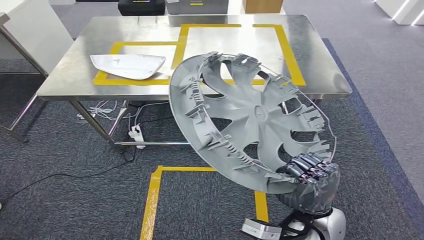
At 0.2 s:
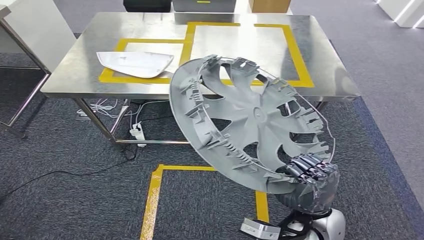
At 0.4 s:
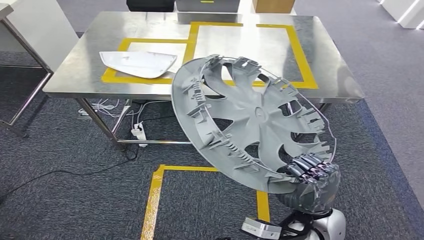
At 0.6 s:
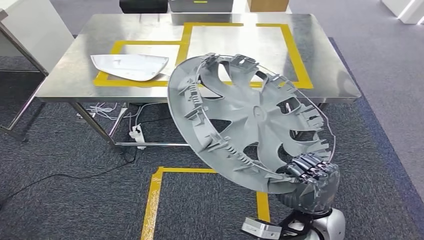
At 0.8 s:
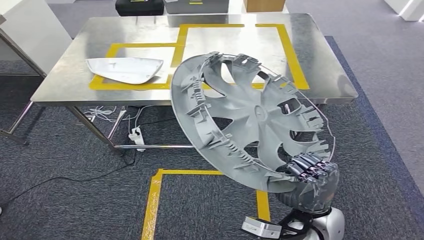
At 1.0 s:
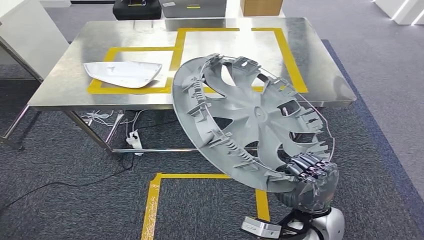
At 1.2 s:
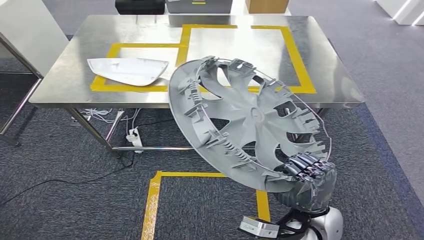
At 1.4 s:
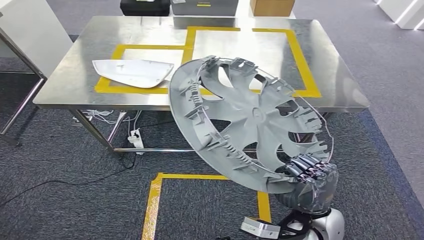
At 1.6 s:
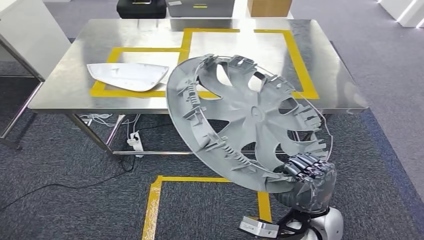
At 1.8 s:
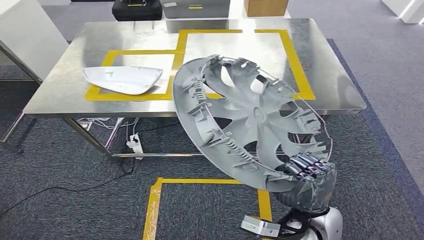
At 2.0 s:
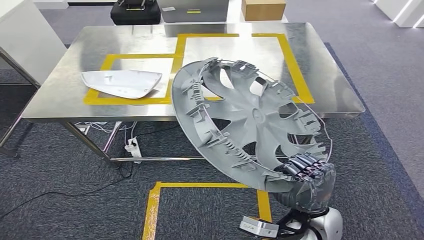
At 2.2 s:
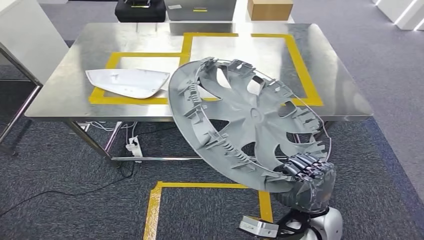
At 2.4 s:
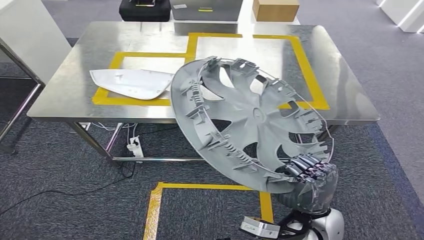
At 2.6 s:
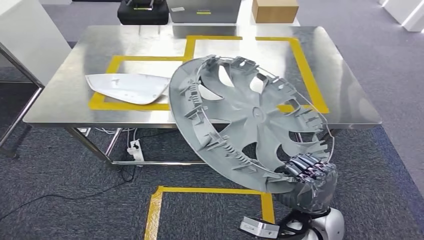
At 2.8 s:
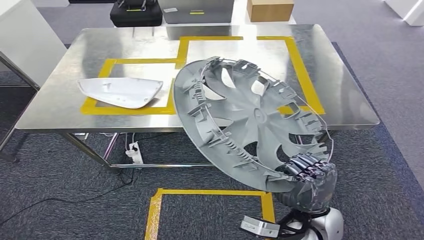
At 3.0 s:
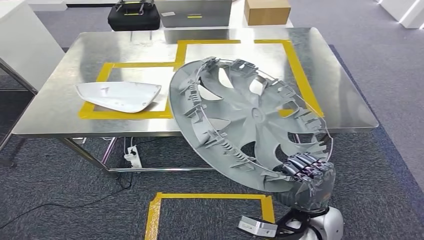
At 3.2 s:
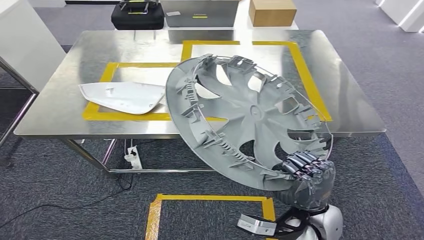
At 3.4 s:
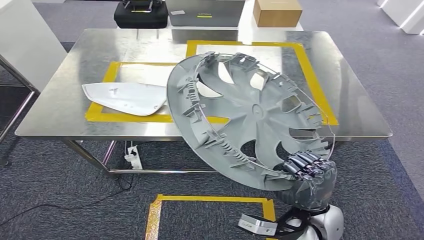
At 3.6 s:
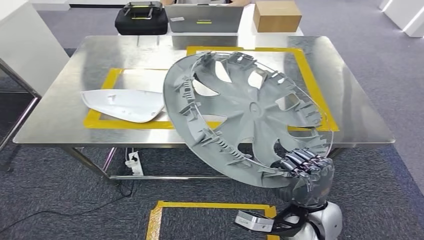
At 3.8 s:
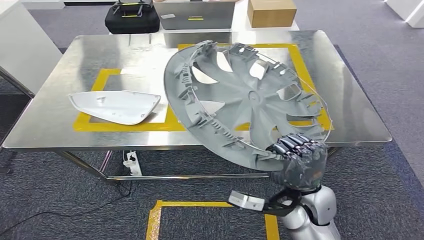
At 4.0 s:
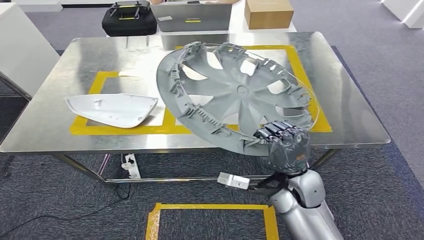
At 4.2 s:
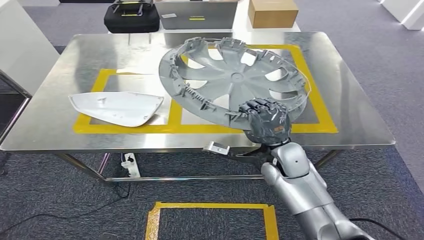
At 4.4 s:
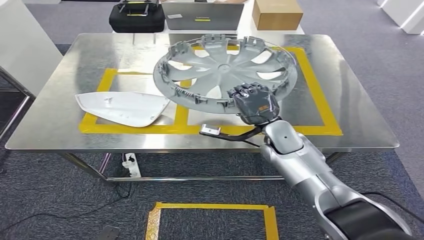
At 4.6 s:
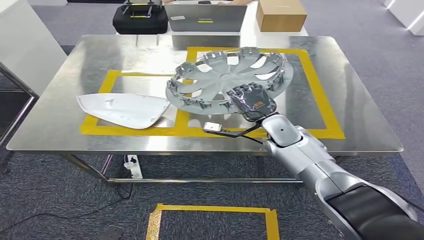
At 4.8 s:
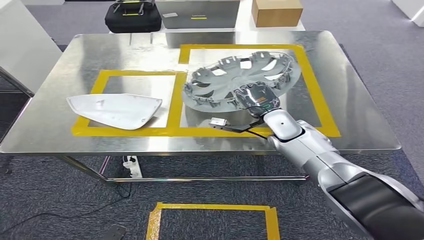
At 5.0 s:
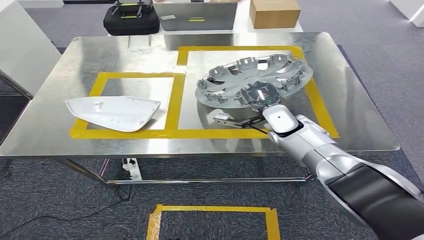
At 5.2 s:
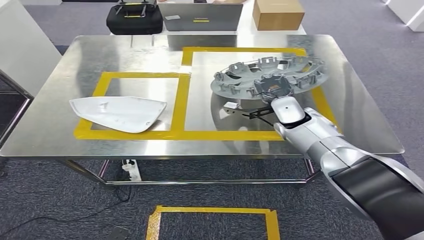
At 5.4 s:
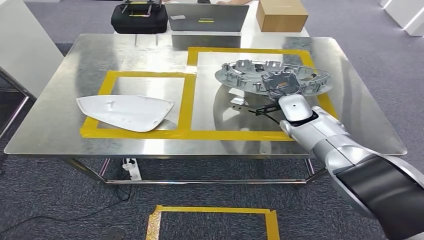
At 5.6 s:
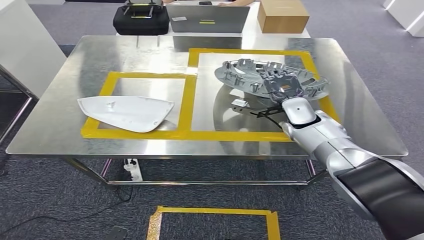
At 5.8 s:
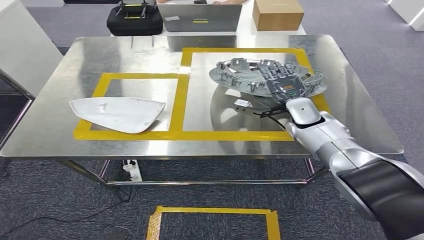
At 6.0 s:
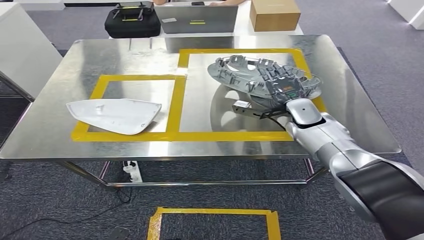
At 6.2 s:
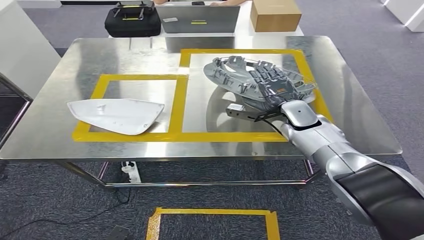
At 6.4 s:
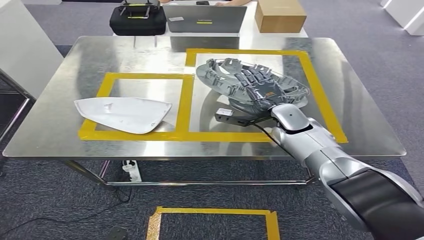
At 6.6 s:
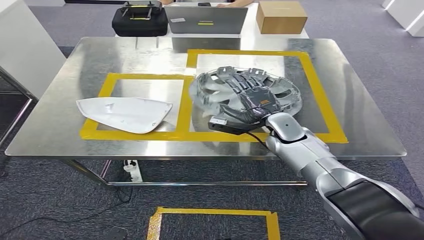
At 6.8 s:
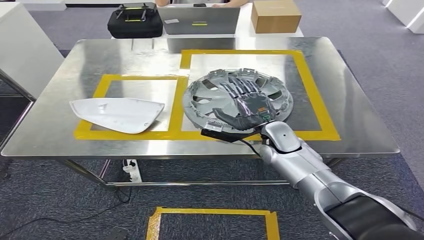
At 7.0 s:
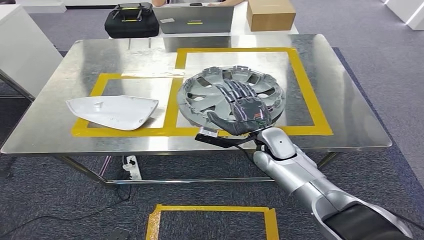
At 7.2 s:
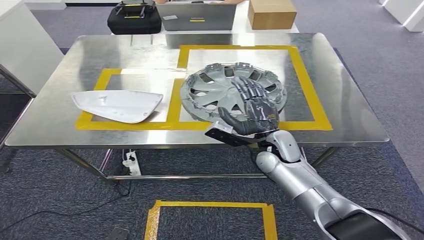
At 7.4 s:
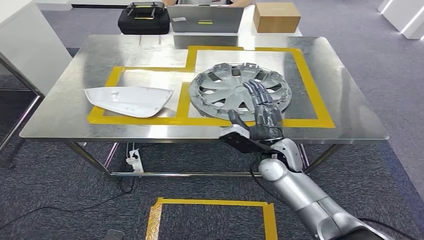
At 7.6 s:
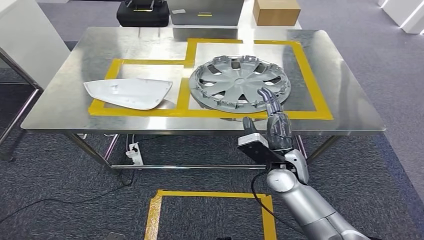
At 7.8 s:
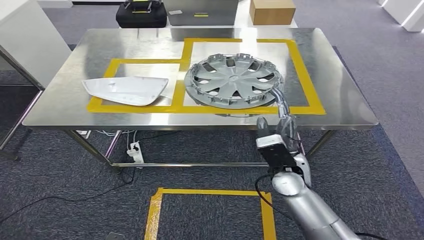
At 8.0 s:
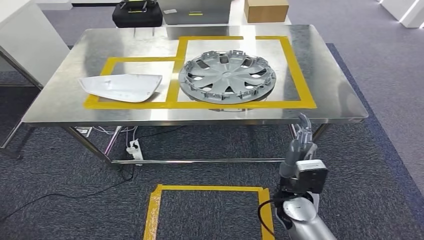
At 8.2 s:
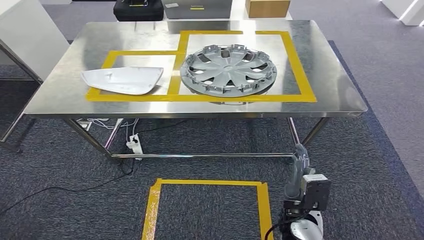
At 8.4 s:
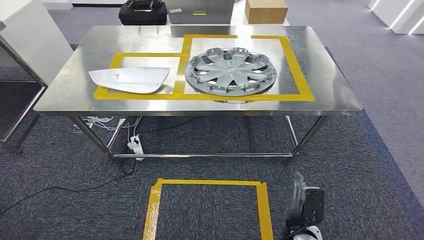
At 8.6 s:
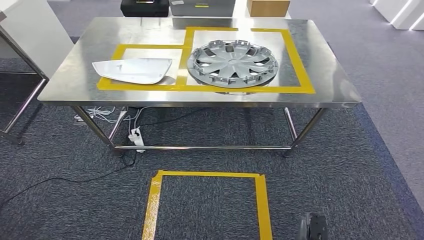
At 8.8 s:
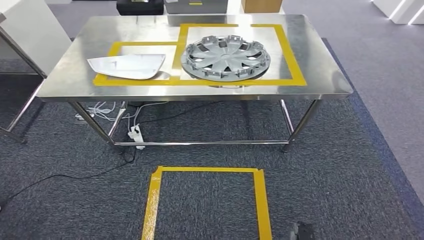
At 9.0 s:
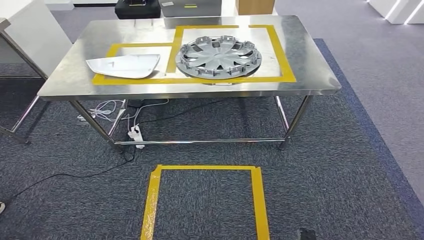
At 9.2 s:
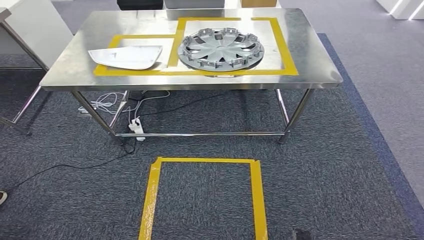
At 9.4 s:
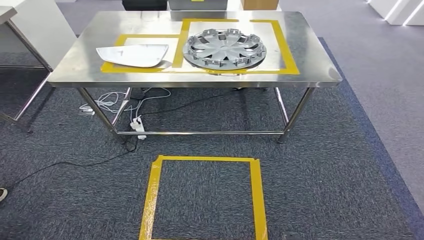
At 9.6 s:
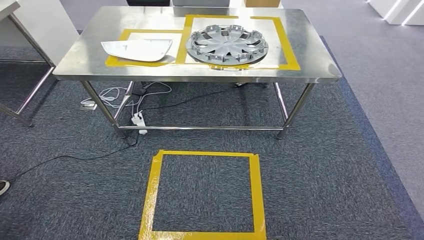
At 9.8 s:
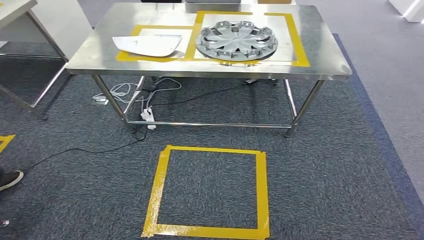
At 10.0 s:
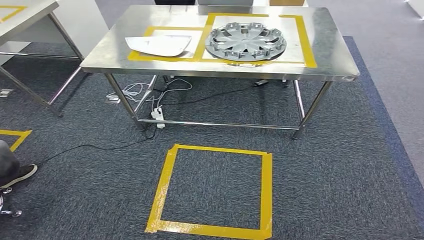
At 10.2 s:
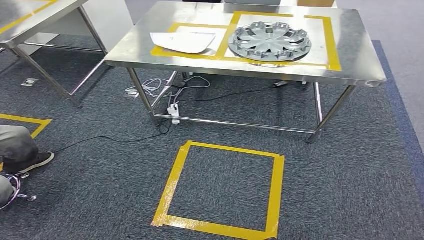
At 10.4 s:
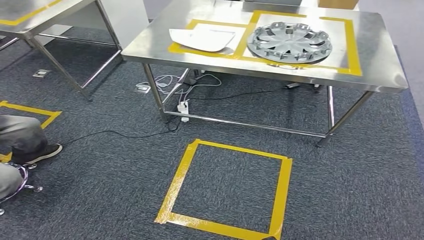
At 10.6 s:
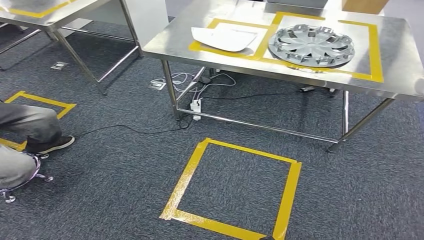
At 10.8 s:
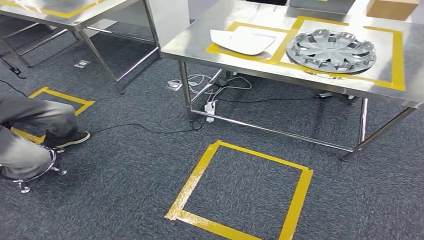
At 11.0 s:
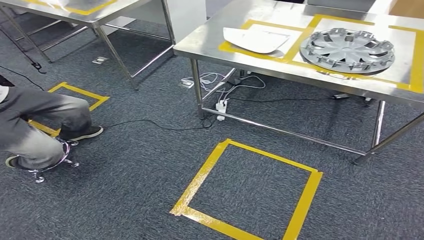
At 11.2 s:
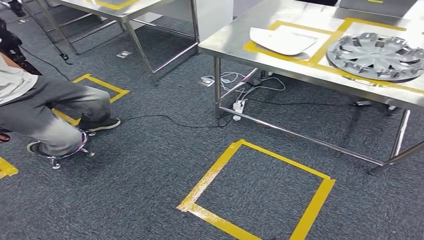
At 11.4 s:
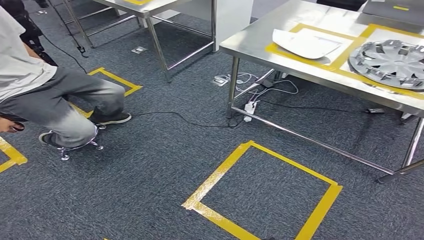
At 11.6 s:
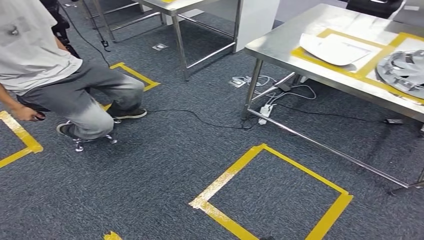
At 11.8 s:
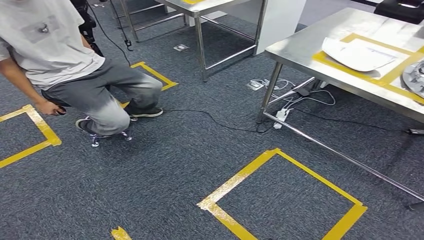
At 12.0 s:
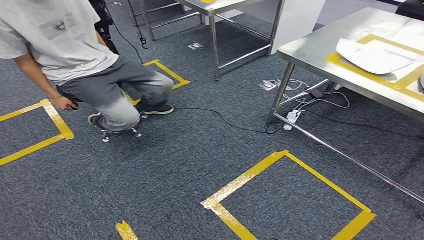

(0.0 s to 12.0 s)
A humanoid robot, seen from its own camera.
Step, 0.0 s - 7.4 s: Insert the small component into the corresponding slot on the workbench.

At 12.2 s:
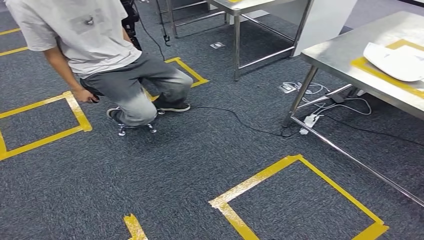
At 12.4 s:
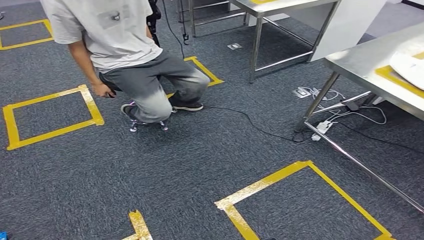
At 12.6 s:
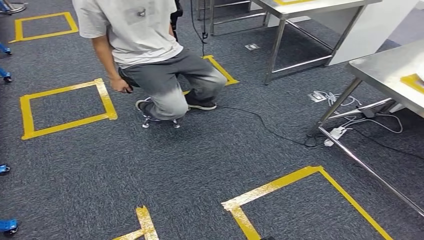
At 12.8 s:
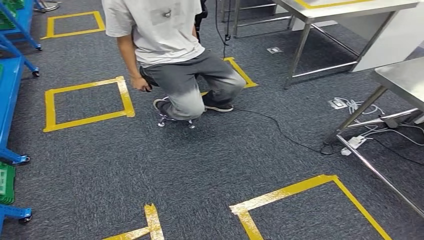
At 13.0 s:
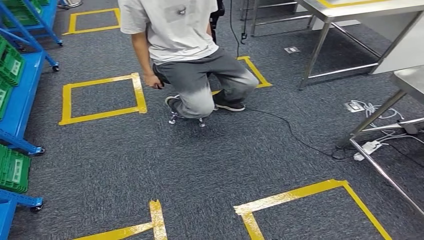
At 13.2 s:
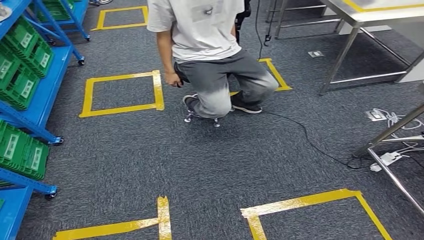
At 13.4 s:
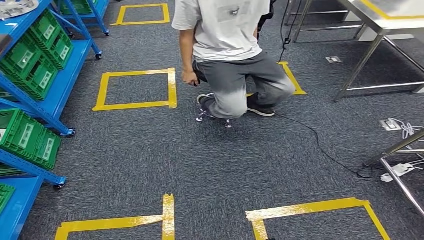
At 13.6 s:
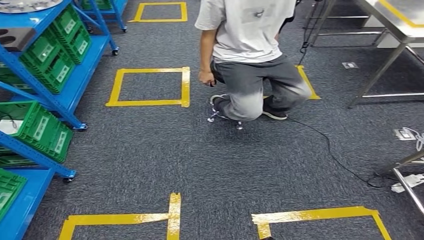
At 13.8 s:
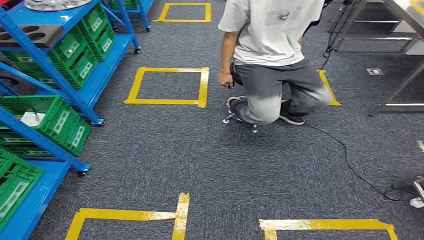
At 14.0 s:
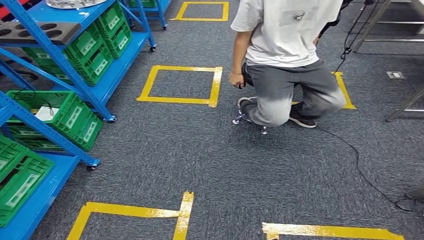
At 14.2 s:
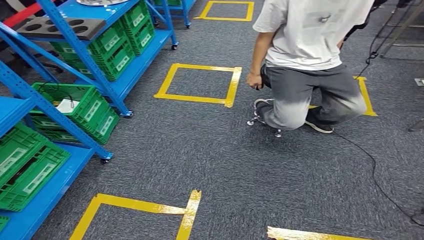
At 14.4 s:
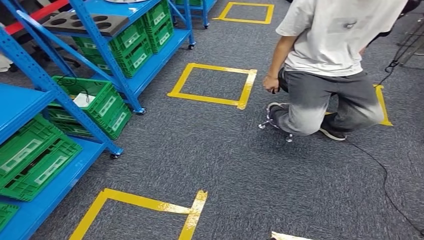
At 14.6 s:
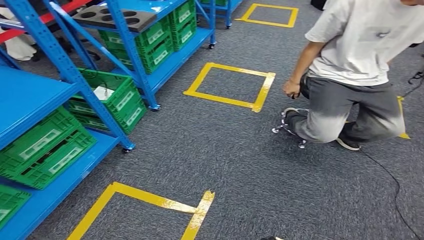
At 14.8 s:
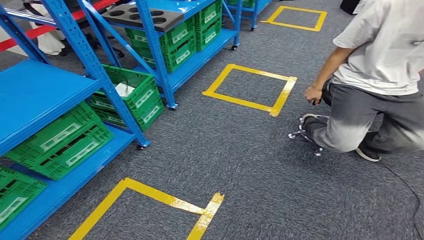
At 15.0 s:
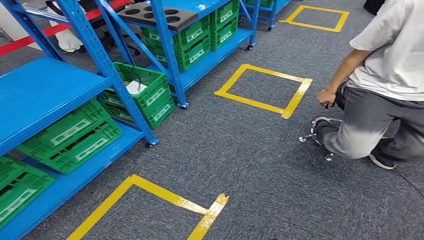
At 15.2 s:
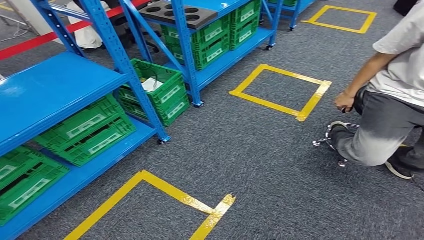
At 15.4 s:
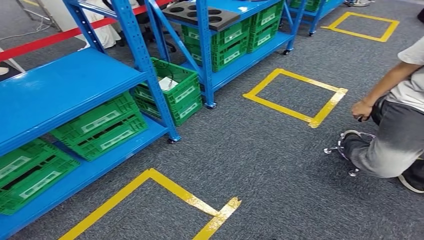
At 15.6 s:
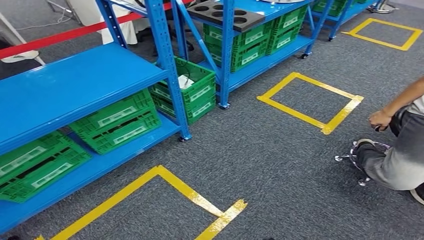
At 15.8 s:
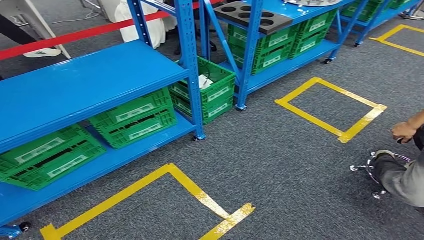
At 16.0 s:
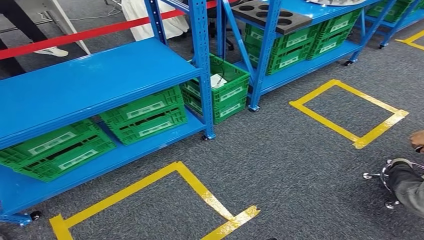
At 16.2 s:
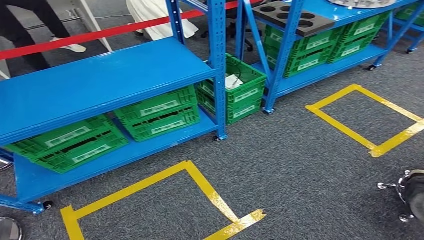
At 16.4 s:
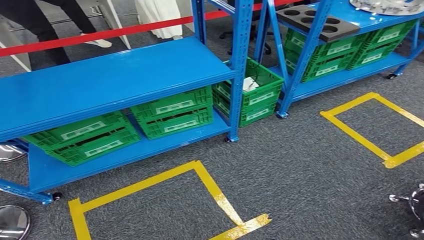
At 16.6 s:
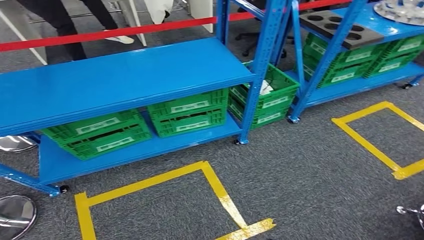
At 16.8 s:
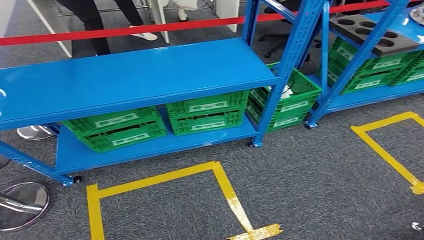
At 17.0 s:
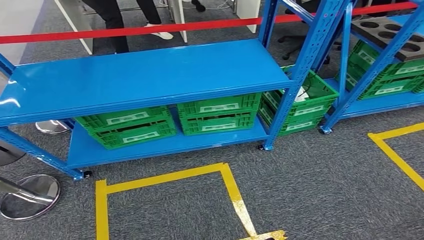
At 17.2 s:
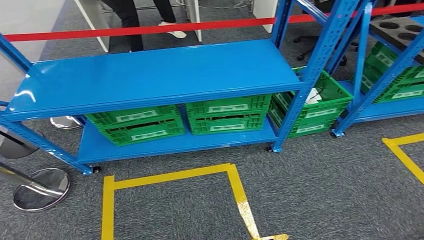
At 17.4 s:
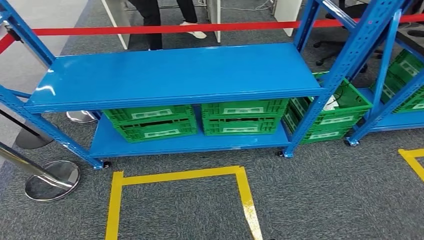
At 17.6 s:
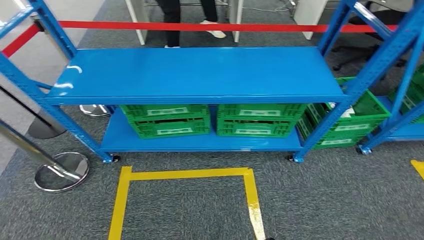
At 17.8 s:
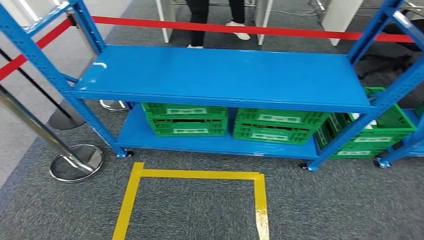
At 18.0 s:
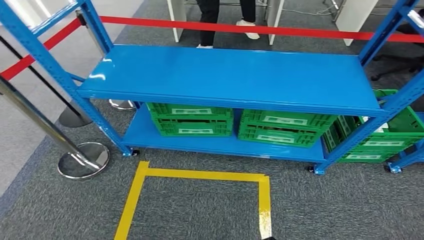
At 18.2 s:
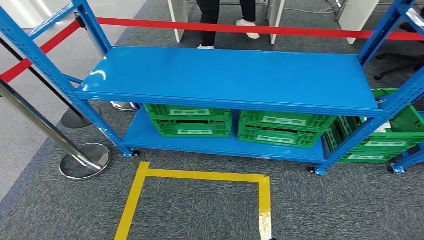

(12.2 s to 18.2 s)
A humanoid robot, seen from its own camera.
Step, 12.2 s - 18.2 s: Return to the initial position at the workbench.
